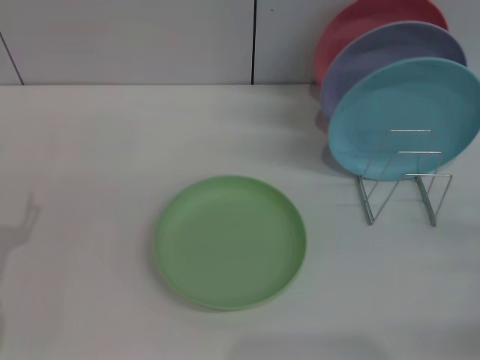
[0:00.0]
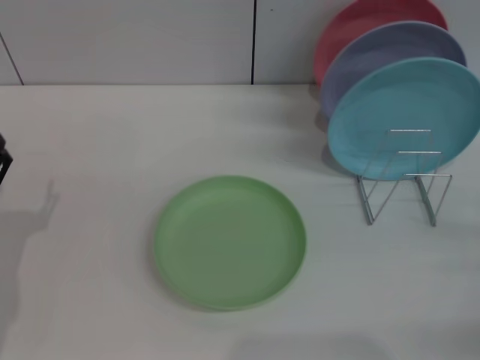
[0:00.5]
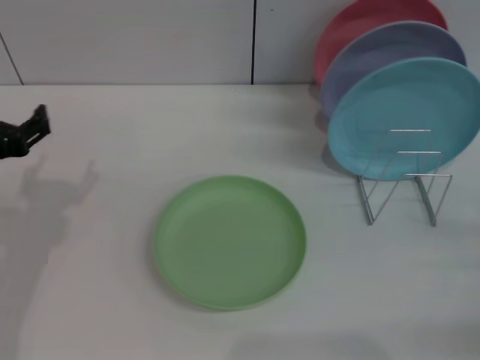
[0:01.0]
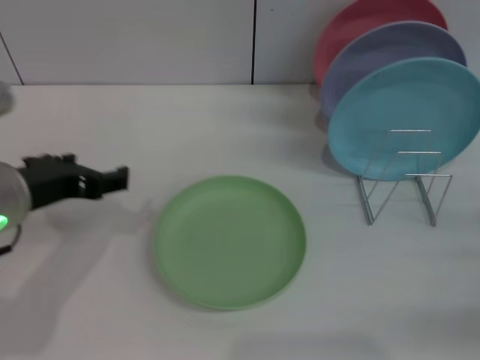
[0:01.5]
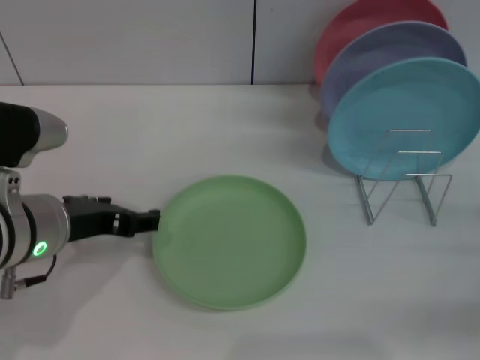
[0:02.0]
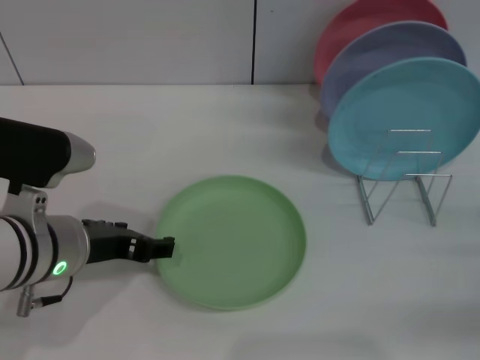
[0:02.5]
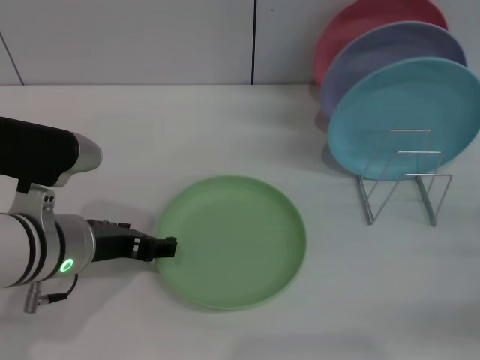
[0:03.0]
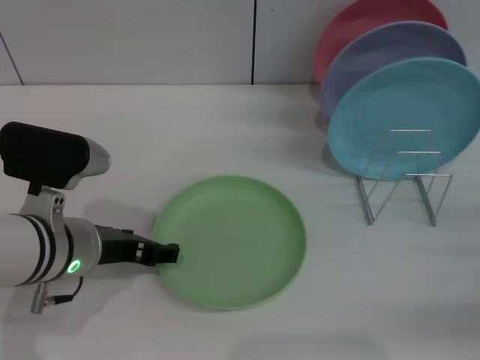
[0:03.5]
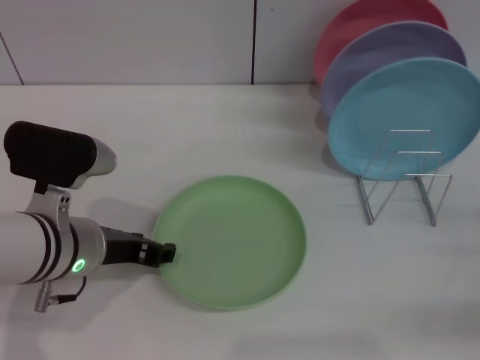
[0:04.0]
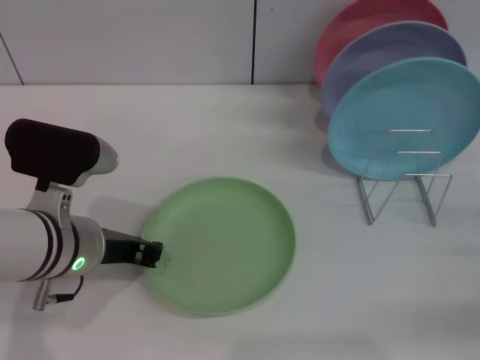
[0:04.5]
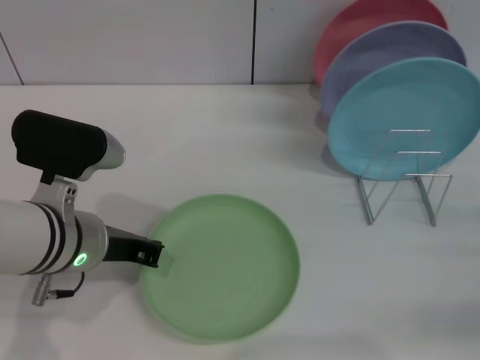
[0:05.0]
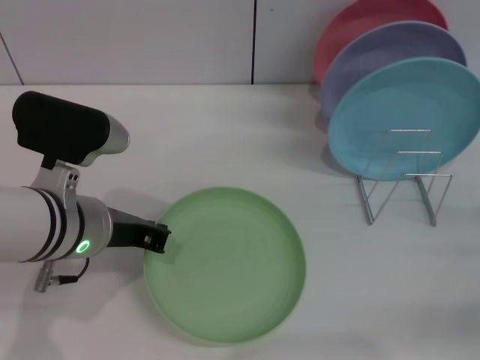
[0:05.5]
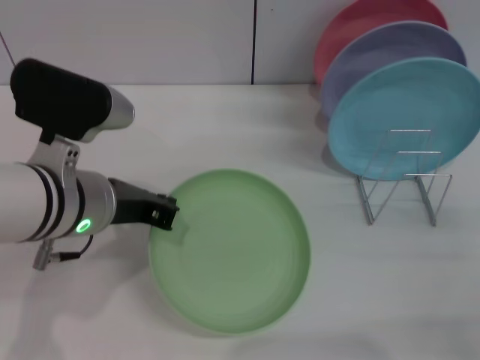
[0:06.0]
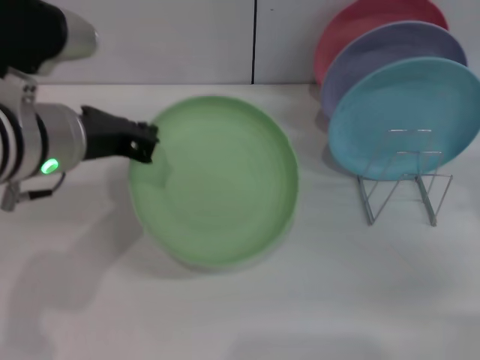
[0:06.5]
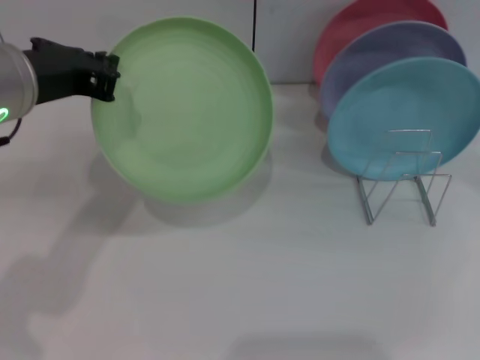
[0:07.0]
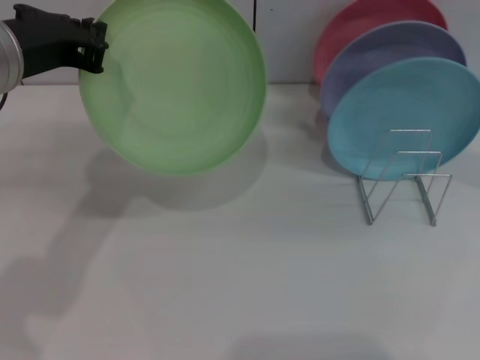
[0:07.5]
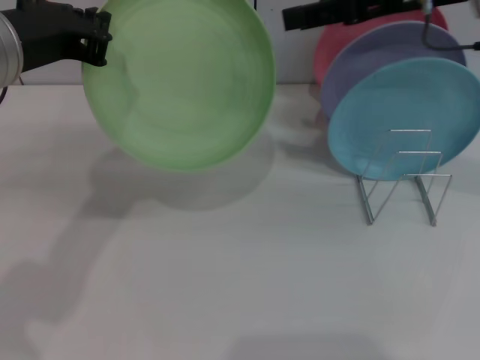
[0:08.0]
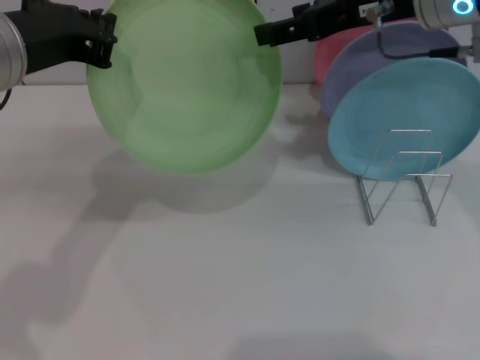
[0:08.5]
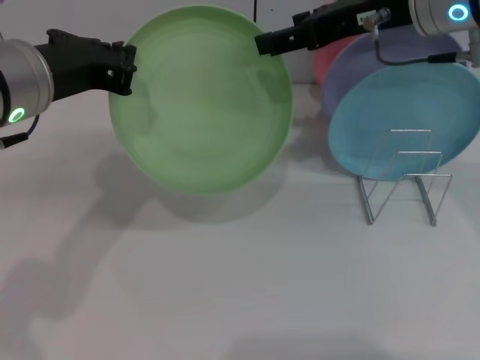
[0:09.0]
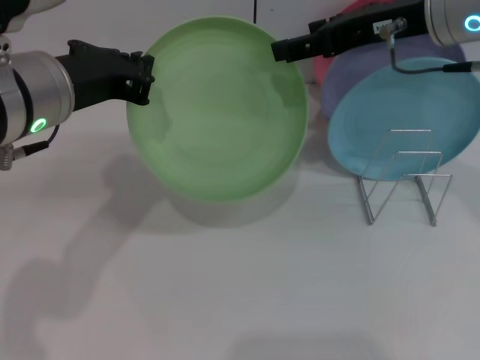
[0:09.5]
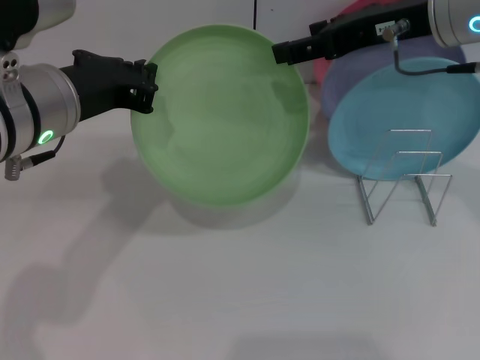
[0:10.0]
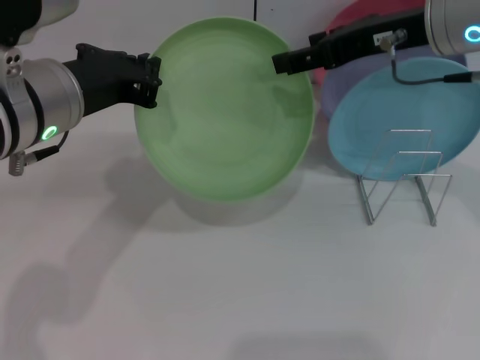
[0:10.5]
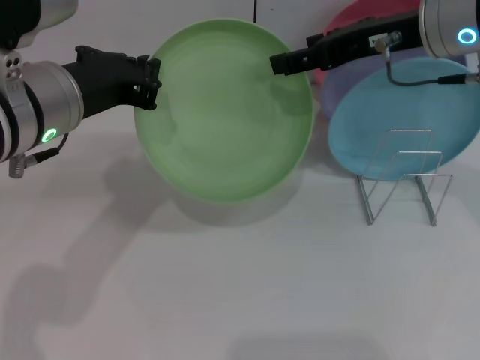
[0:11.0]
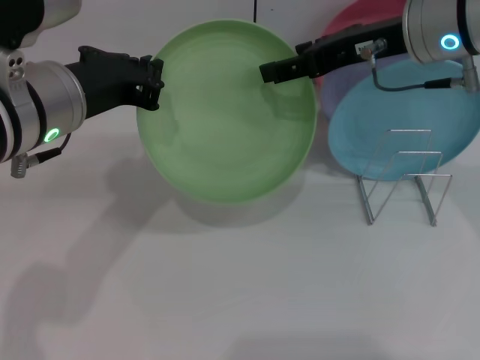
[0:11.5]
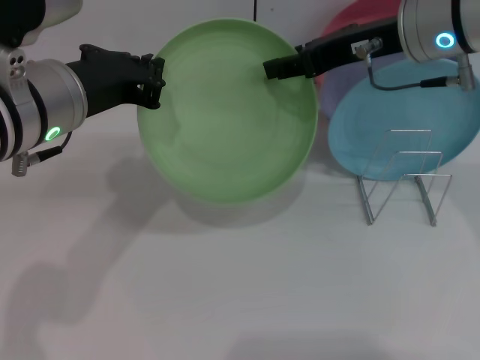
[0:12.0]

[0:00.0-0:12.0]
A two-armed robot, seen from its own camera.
Task of the whole recording: Grip the plate with one hand, pass it to the other, then set it on the shelf.
Step, 0:00.0 to 0:06.0: Pick up the plate with the left gripper.
0:00.0 to 0:02.0: The left gripper shifts about 15 cm to the right, upward and forward.
0:02.0 to 0:04.0: There are only small adjustments of the grippers.
0:04.0 to 0:06.0: The left gripper heads upward, covering roughly 5 cm, and closes up.
0:06.0 to 0:08.0: The left gripper goes about 10 cm upward; the right gripper goes roughly 30 cm upward, forward and to the left.
0:08.0 to 0:10.0: The left gripper heads downward, covering approximately 5 cm.
0:10.0 to 0:12.0: There are only small adjustments of the grippers.

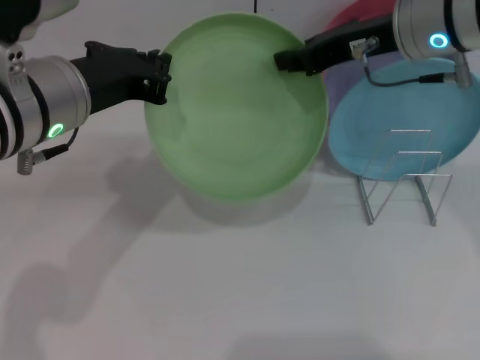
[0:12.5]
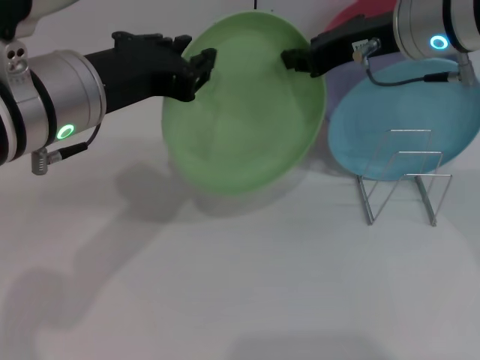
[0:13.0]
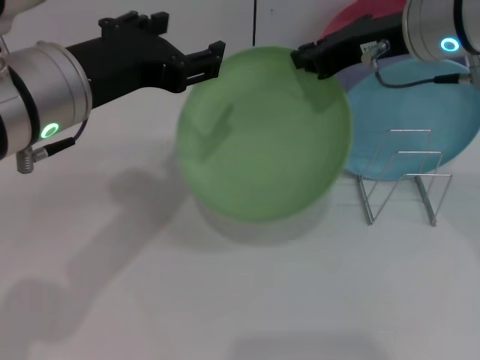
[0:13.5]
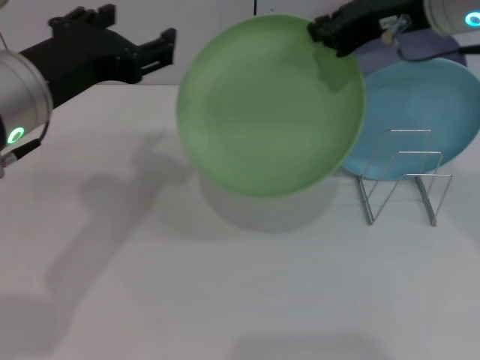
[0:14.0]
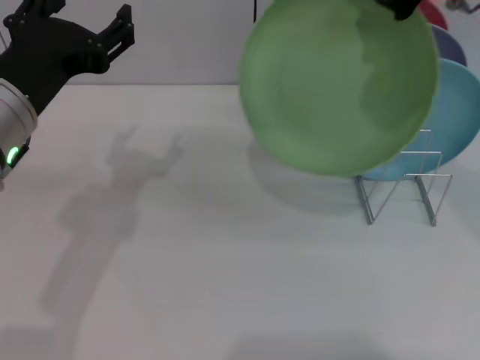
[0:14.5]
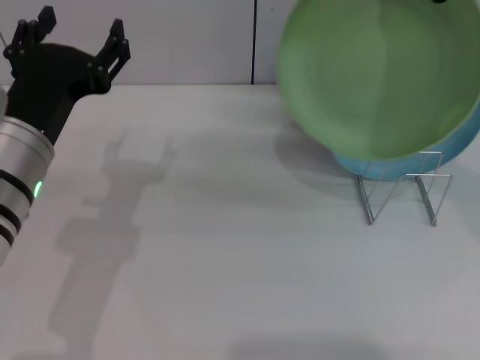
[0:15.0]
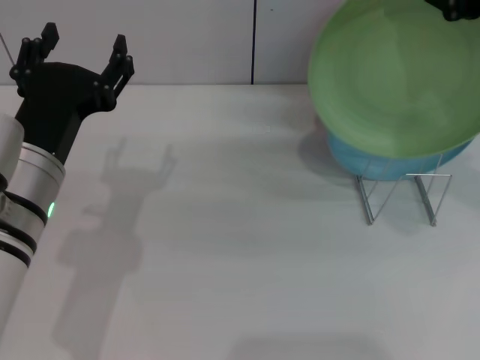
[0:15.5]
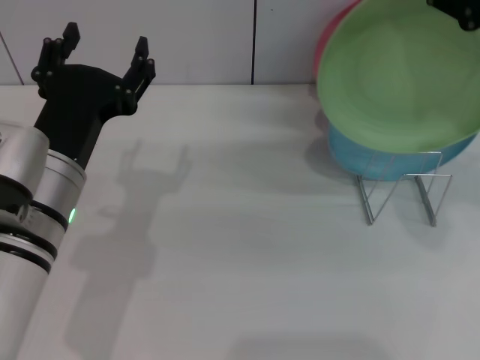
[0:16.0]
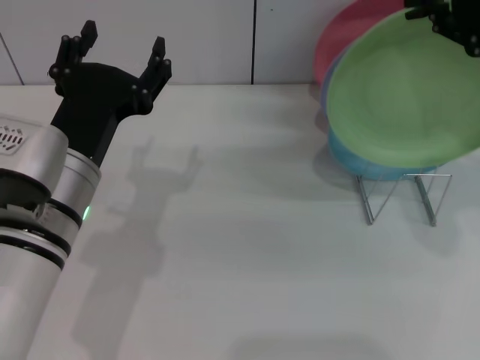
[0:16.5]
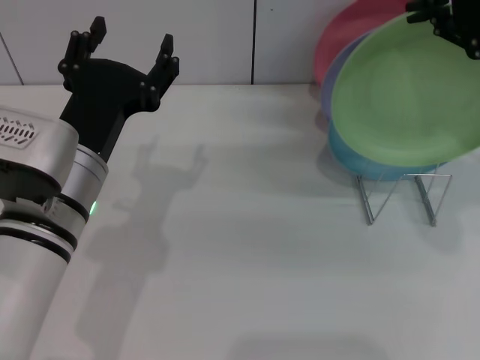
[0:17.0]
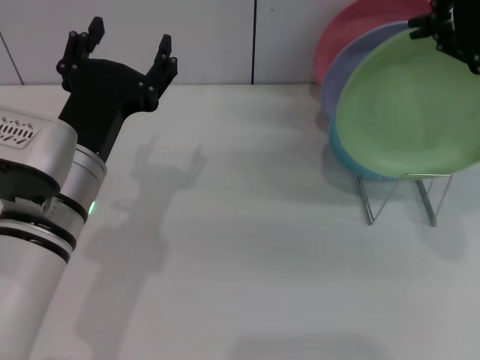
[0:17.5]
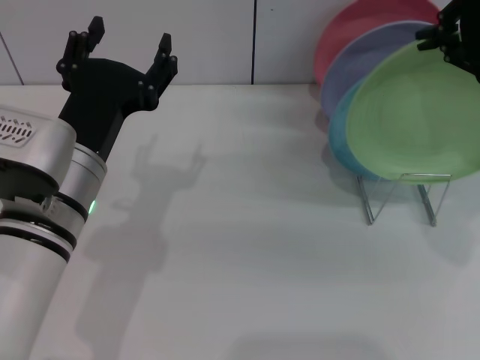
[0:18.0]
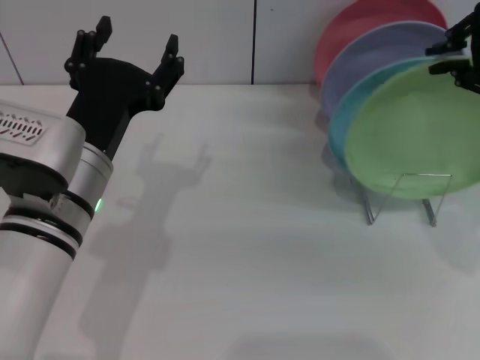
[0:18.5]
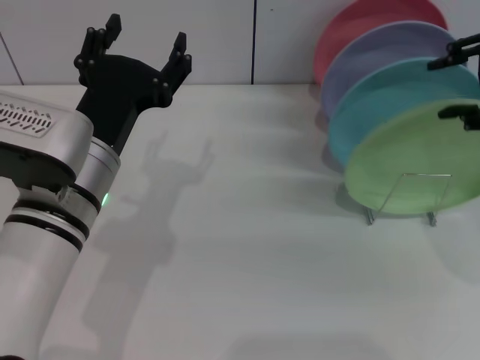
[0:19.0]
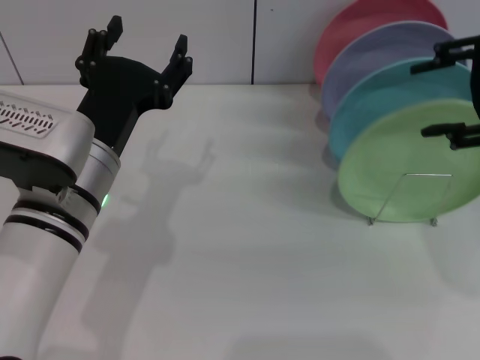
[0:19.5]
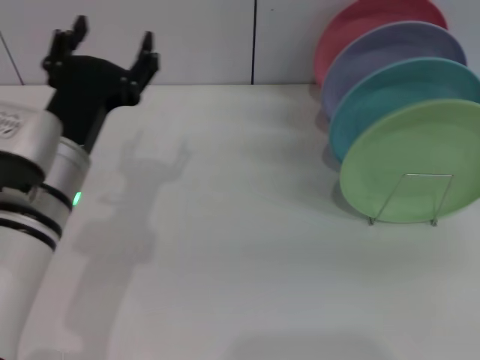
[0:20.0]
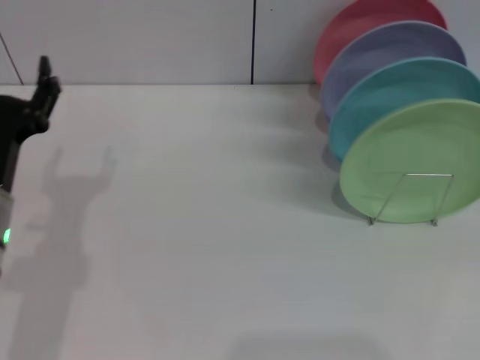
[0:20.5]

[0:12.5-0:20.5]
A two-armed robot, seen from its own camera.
Task of the whole recording: Grip the plate with one hand, pass it to the other, then set it on the shelf.
Step, 0:13.5 to 0:19.5: Place the plate on the shelf with the right gripper.
0:12.5 to 0:14.5: The left gripper opens, while the right gripper shifts approximately 10 cm upward, and closes.
0:14.5 to 0:16.5: The left gripper heads downward, covering some 5 cm. Meanwhile the right gripper travels to the right by about 5 cm.
0:16.5 to 0:18.5: The grippers move only a little.
0:18.5 to 0:20.5: The left gripper shifts roughly 10 cm to the left. The right gripper is displaced to the right, downward and backward by approximately 30 cm, and opens.

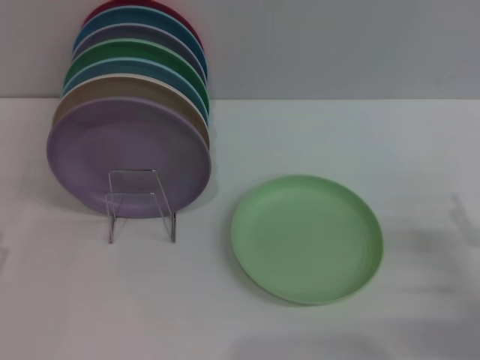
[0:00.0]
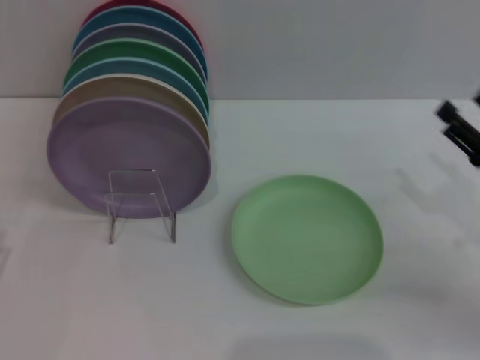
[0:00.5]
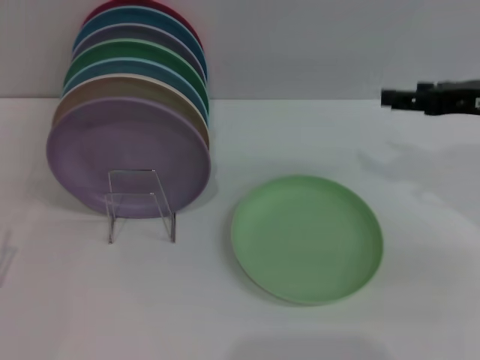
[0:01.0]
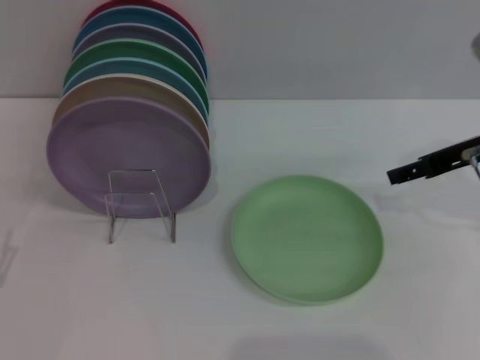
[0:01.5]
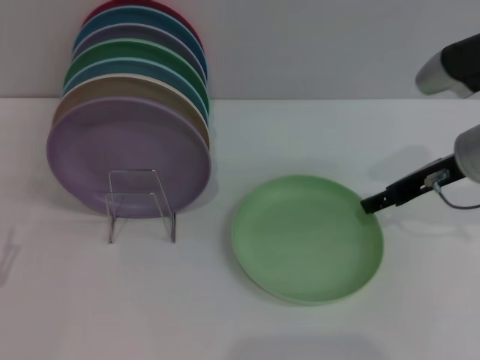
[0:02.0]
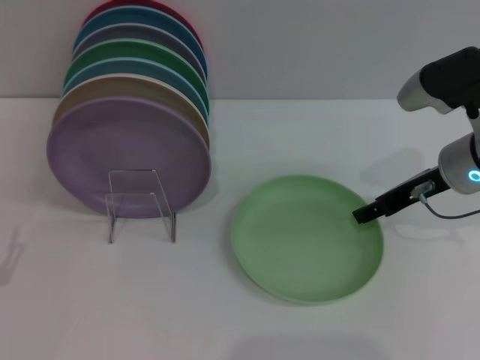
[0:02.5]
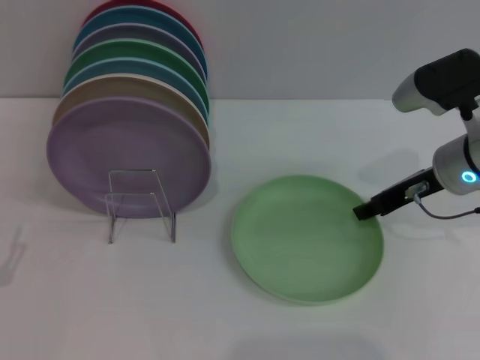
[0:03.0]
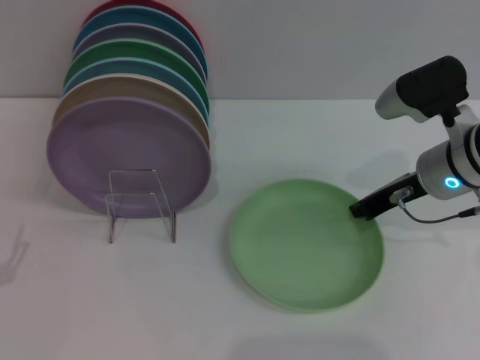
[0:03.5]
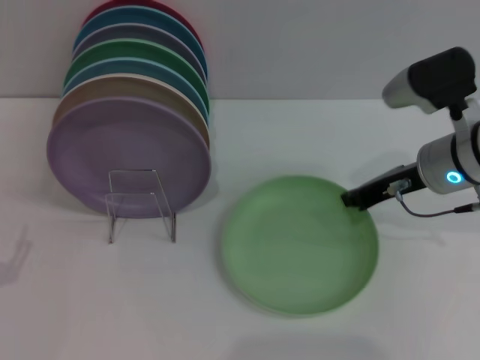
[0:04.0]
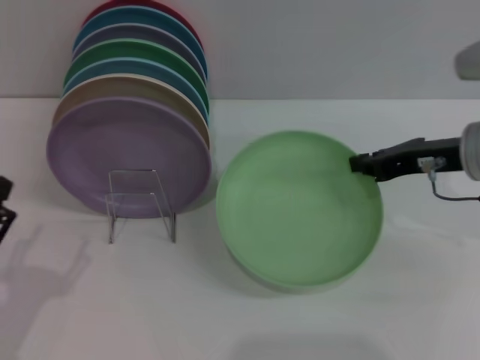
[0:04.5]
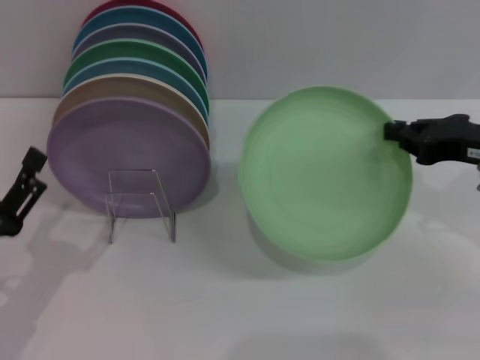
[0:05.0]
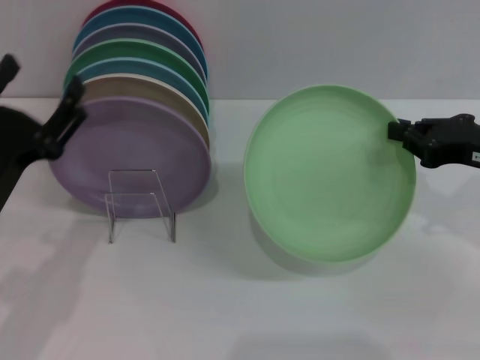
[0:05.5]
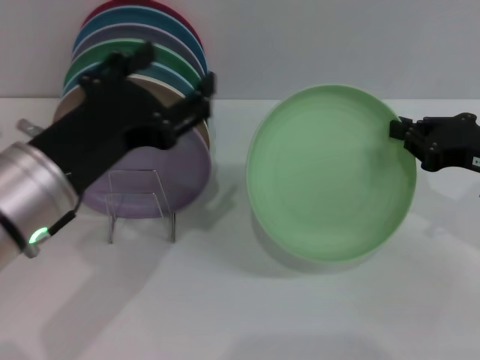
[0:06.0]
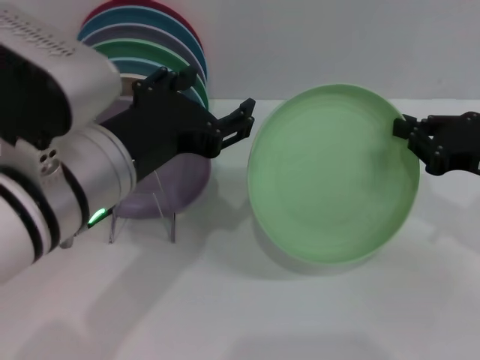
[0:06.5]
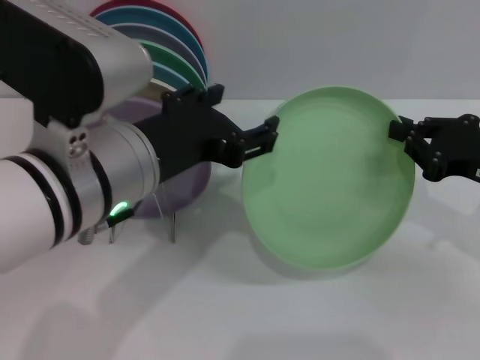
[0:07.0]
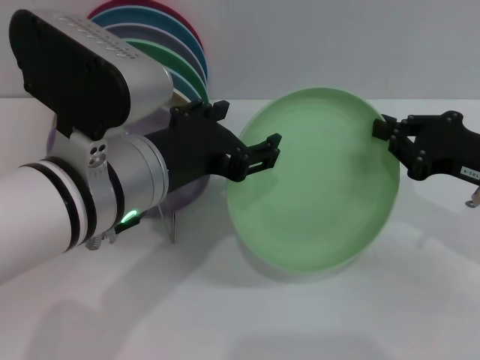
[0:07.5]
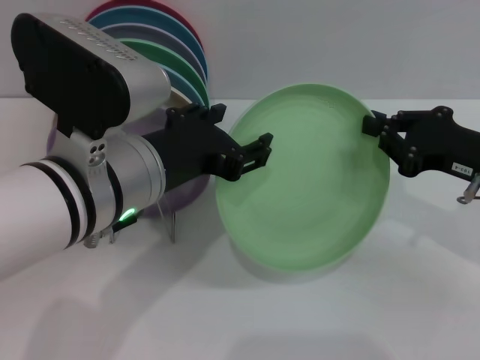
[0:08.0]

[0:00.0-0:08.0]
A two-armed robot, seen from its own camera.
Task of the whole recording: Grip the plate with one hand, pass it to the other, then set it on the shelf.
Step, 0:00.0 to 0:04.0: Pick up the plate with the right gripper.
0:00.0 to 0:02.0: The right gripper is displaced forward, upward and to the left by approximately 20 cm.
0:02.0 to 0:04.0: The right gripper closes its fingers.
0:04.0 to 0:06.0: The left gripper shifts about 25 cm upward and to the right. Meanwhile the right gripper shifts approximately 10 cm to the right and backward.
0:06.0 to 0:08.0: The left gripper goes approximately 5 cm to the right.
